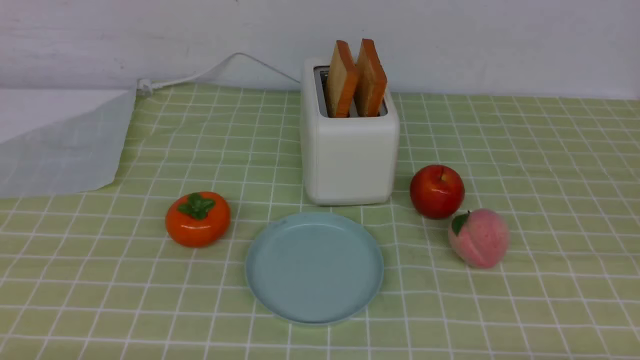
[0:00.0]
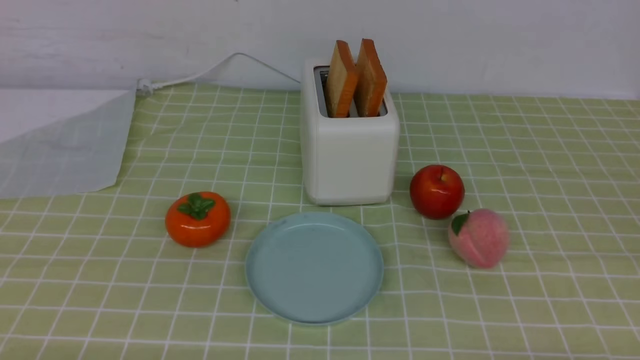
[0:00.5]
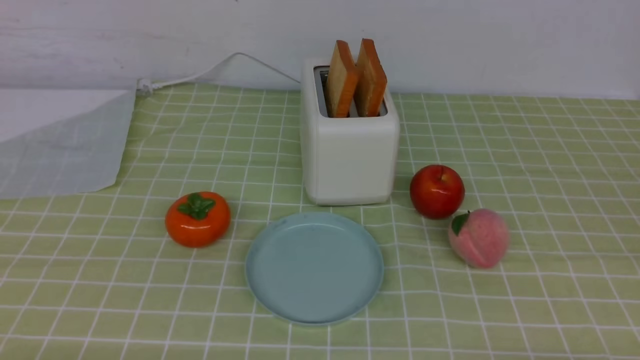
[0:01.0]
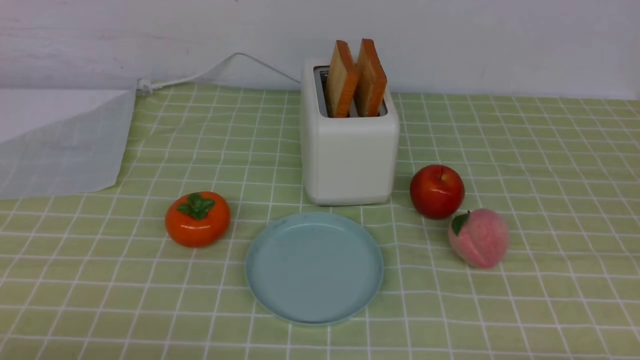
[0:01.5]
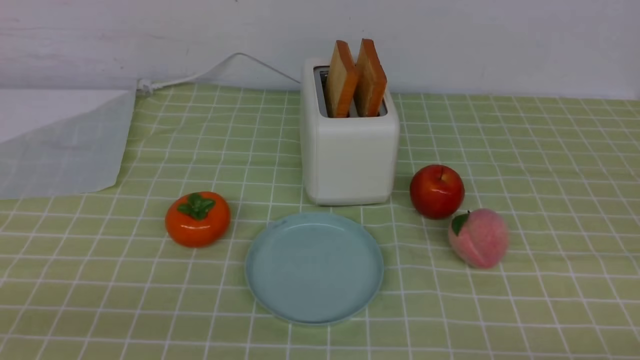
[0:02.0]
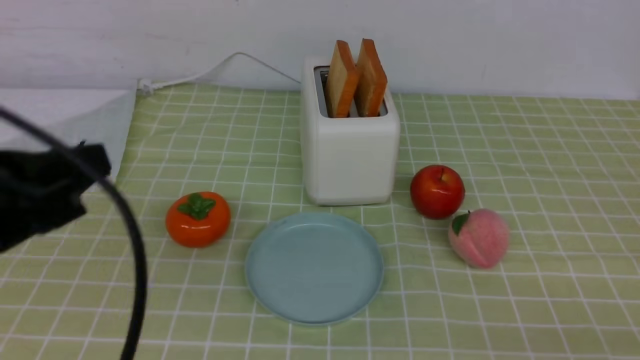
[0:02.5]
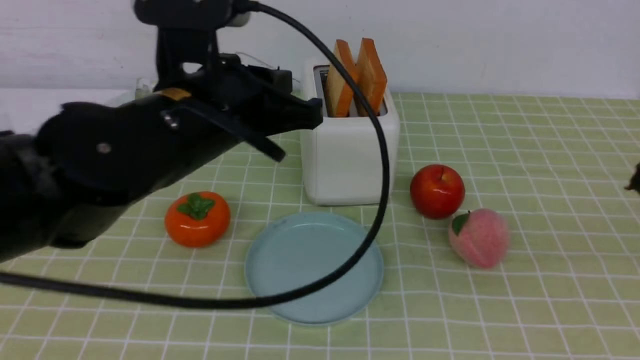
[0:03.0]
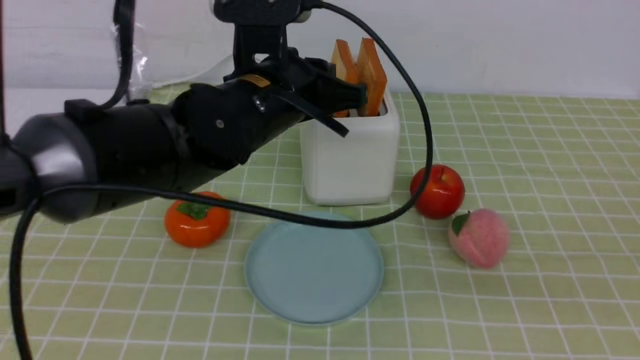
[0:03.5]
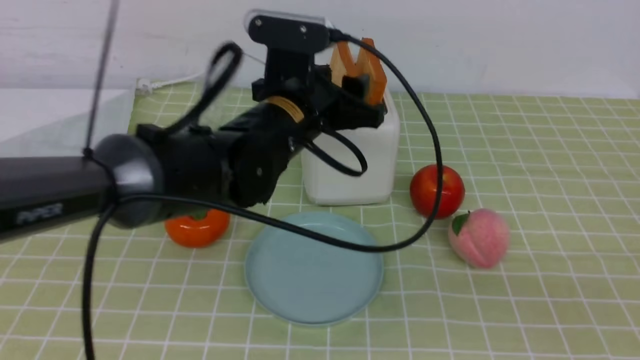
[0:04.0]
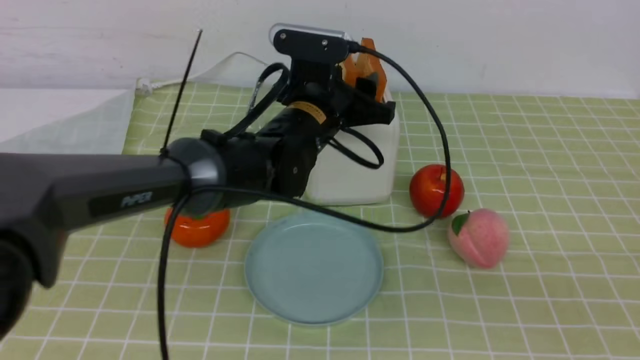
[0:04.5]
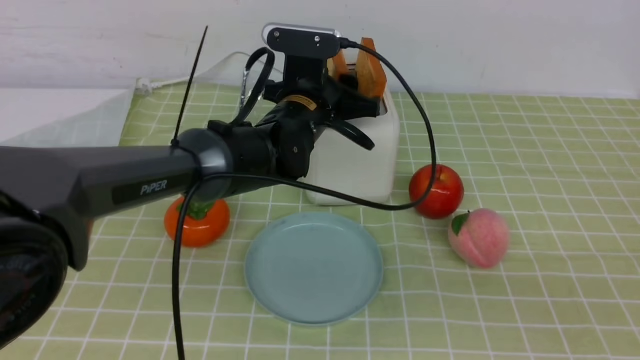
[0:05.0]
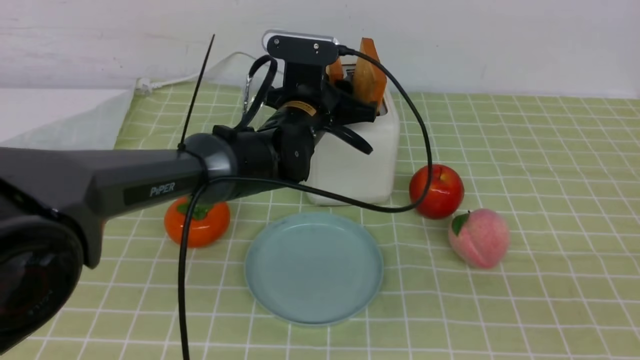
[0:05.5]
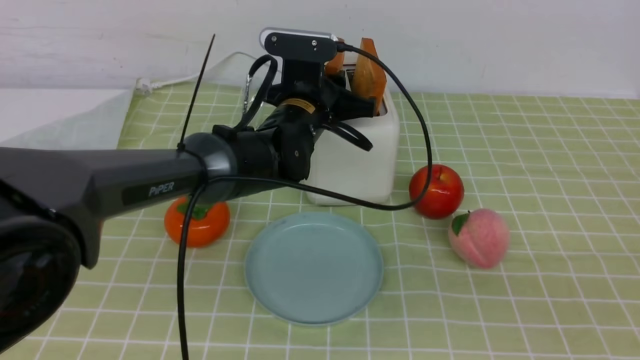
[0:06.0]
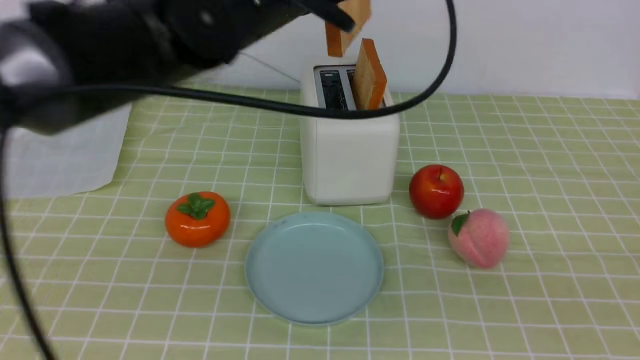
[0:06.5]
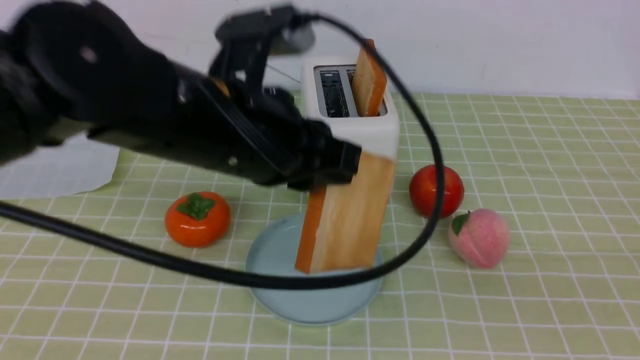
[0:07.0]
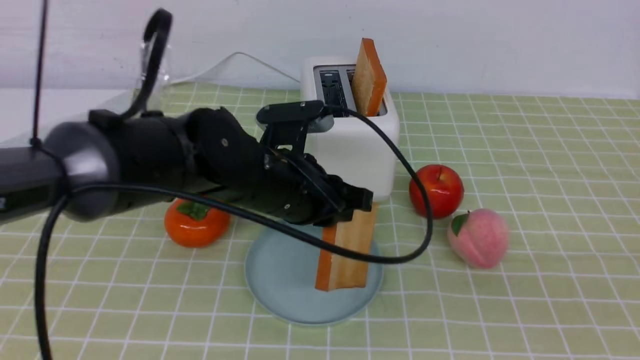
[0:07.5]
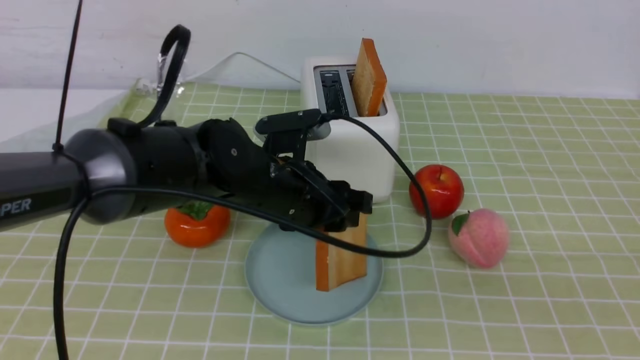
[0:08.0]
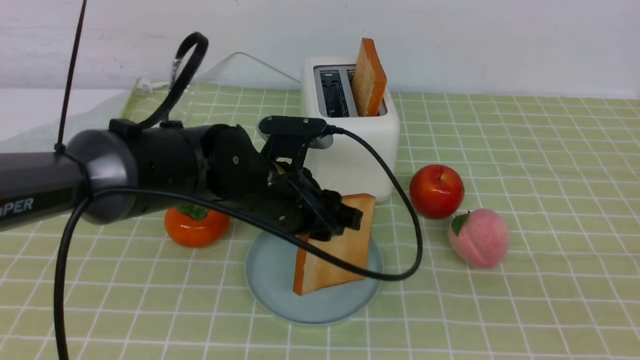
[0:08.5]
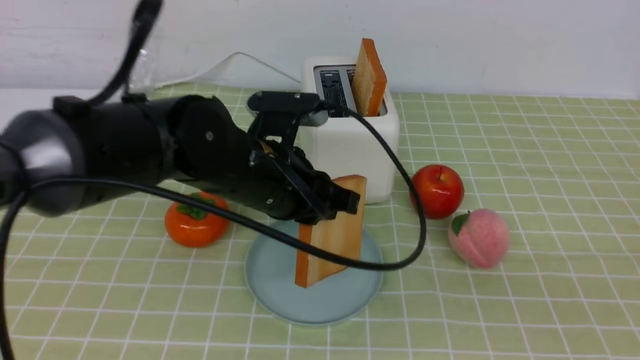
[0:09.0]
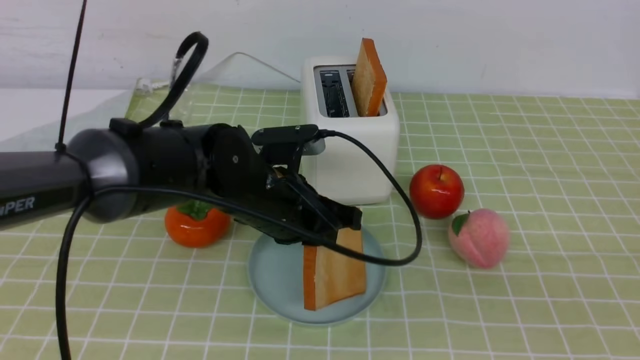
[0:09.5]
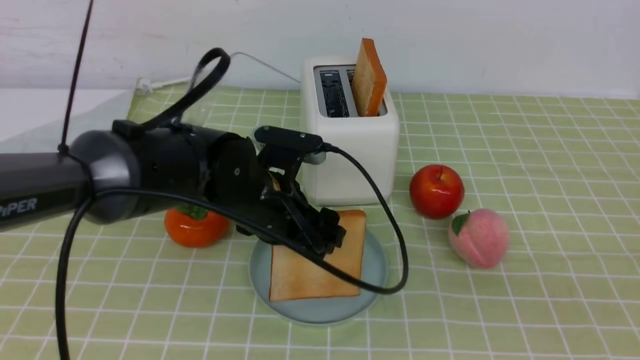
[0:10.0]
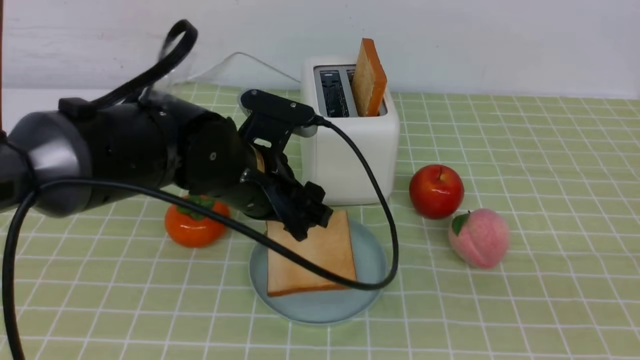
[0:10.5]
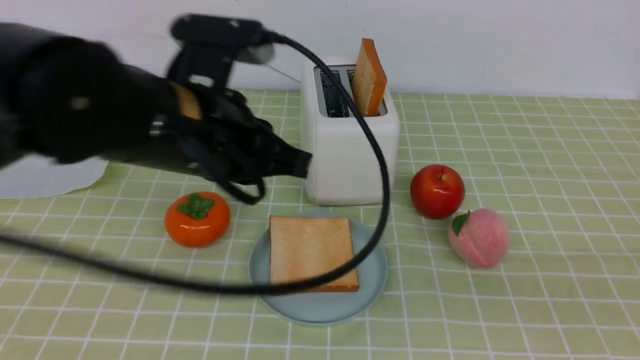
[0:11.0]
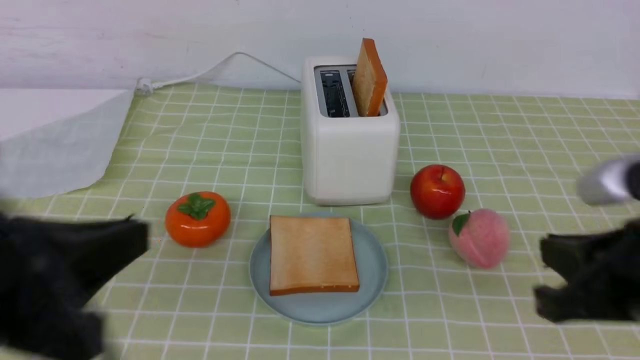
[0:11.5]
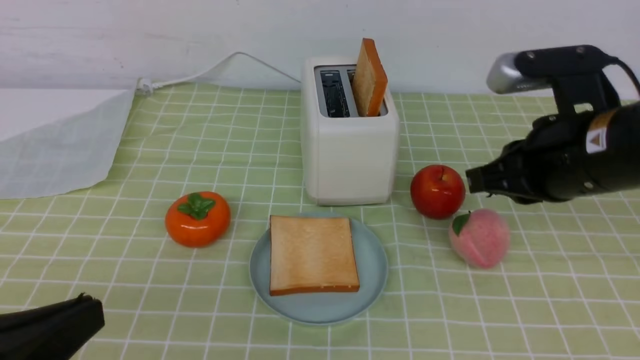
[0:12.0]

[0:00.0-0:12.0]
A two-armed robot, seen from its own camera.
Task of the whole recording: take toasted bread from bread machine on green coffee tablecloth place on plate.
Step, 0:00.0 to 0:06.0: use the left arm to take out a slice of bread.
Step, 0:06.5 to 0:10.5: use the left arm to put a slice of bread into the empty plate.
0:02.0 to 0:04.0: The left gripper moves forward and to the right, some 35 cm, and opens up, while the right gripper goes roughly 10 cm upward, and closes.
0:04.0 to 0:06.0: The left gripper shifts about 5 cm forward, and closes up.
0:06.0 to 0:08.0: The left gripper shifts some 10 cm backward, travels upward and back again, approximately 15 cm each way, and opens up.
0:08.0 to 0:10.0: The left gripper opens.
0:10.0 to 0:12.0: The left gripper is displaced backward and to the left by roughly 30 cm, and closes. Meanwhile the right gripper moves forward and to the left, roughly 20 cm.

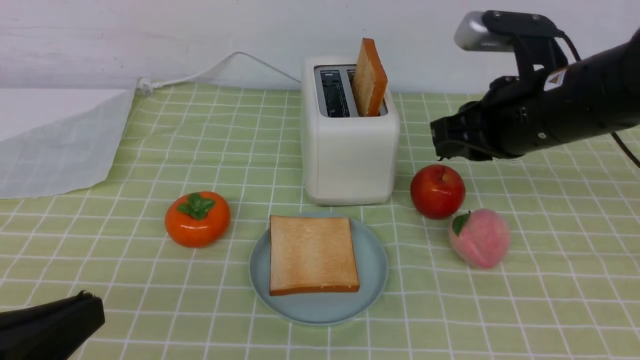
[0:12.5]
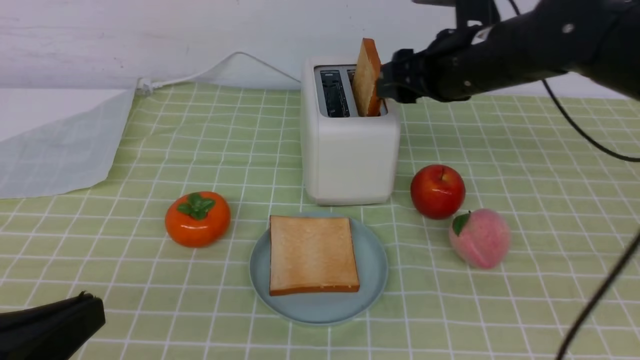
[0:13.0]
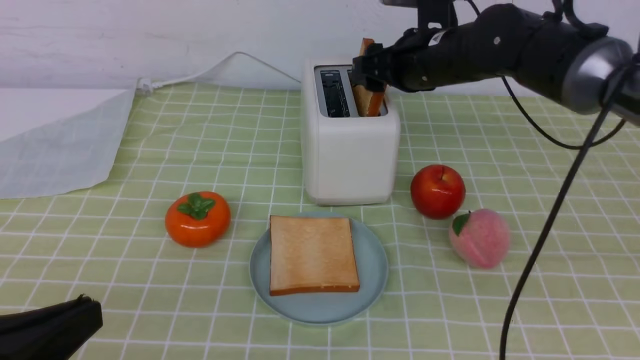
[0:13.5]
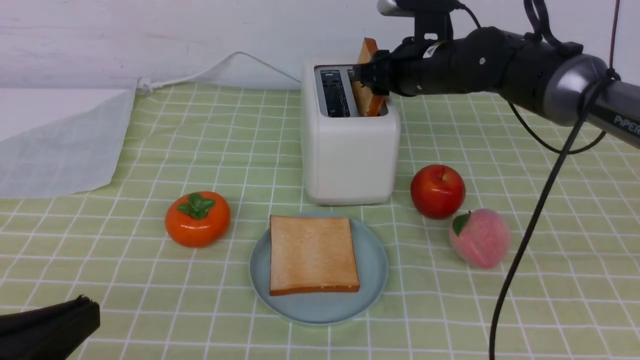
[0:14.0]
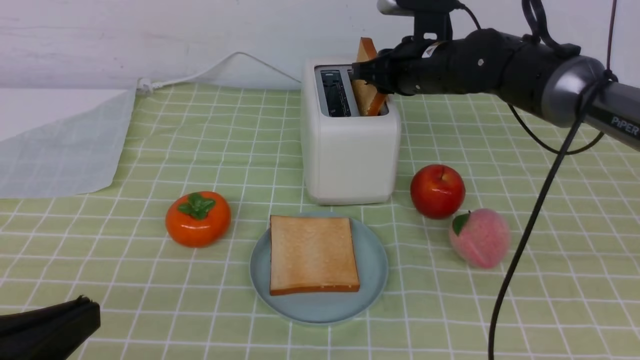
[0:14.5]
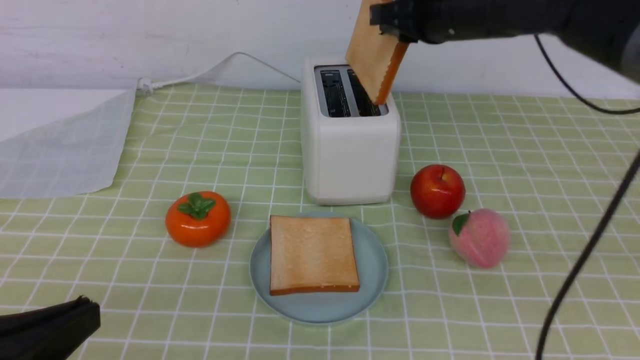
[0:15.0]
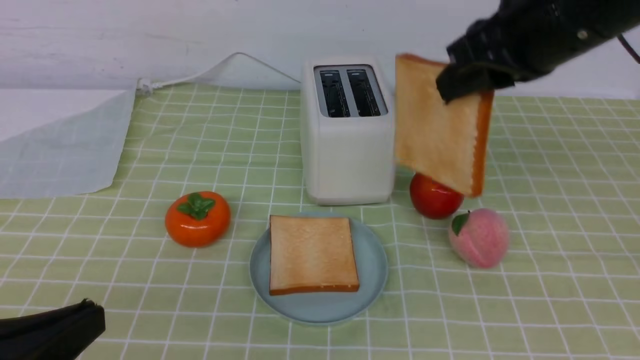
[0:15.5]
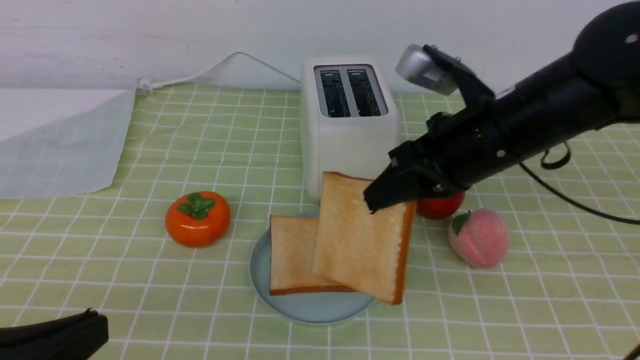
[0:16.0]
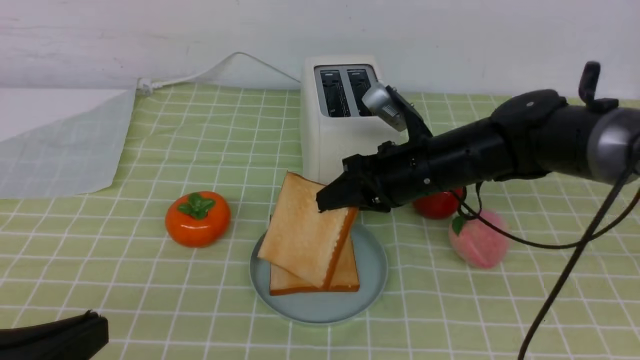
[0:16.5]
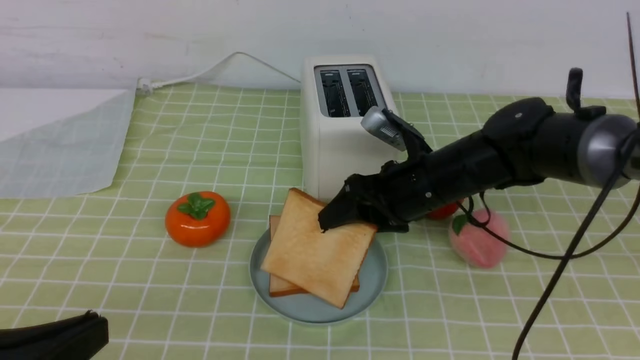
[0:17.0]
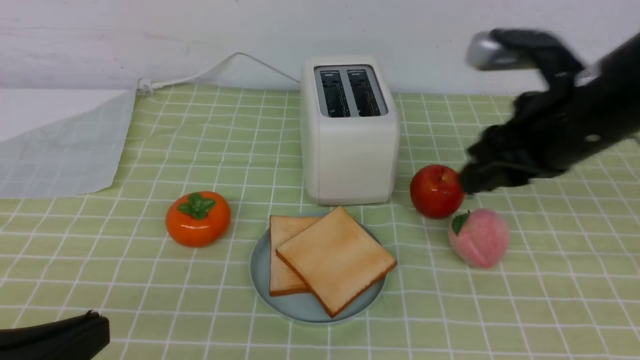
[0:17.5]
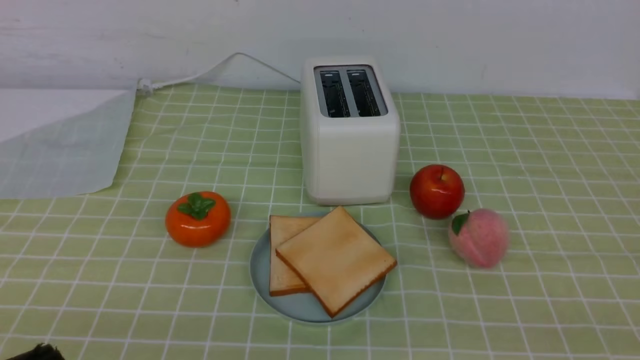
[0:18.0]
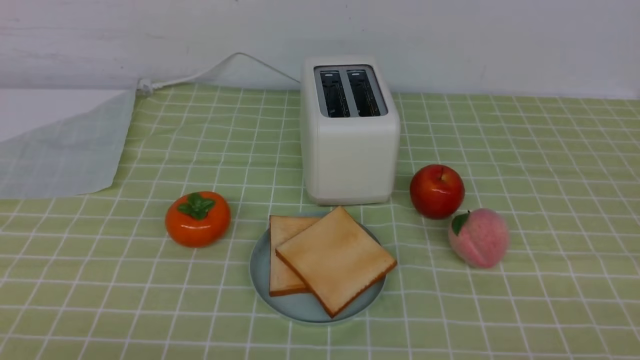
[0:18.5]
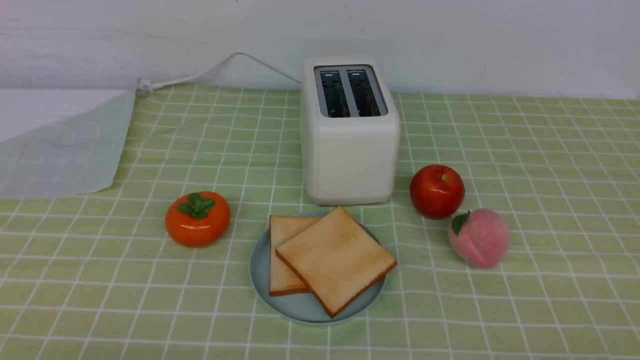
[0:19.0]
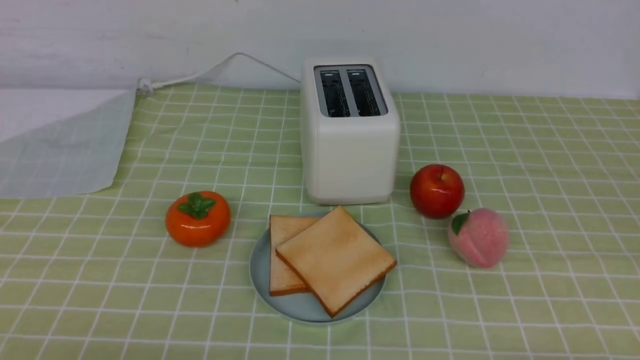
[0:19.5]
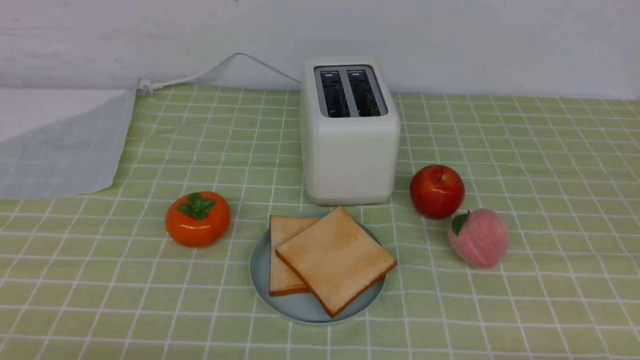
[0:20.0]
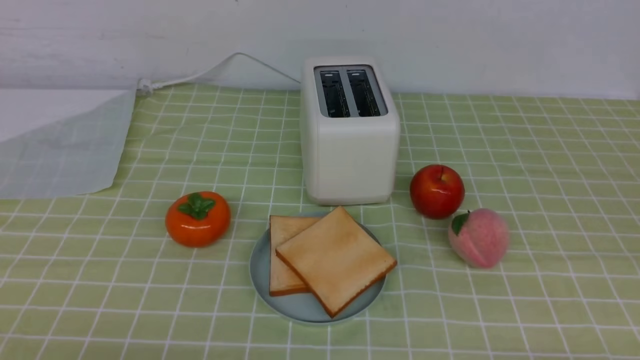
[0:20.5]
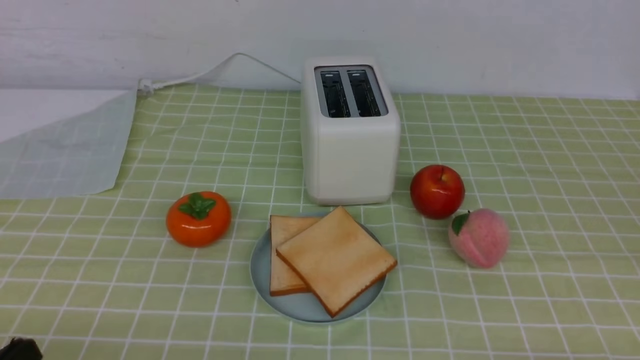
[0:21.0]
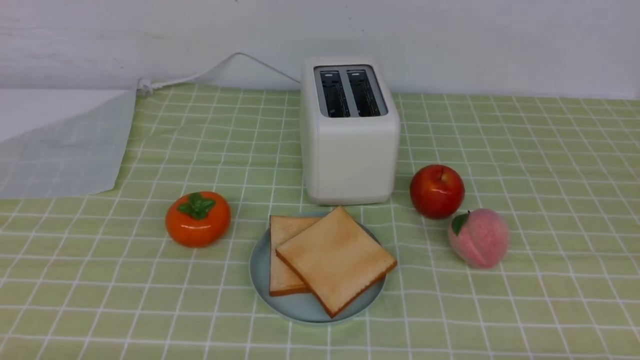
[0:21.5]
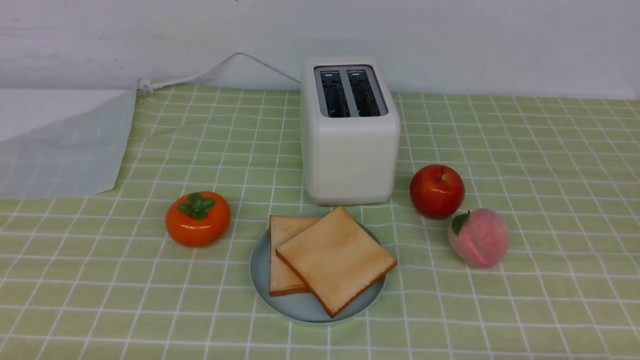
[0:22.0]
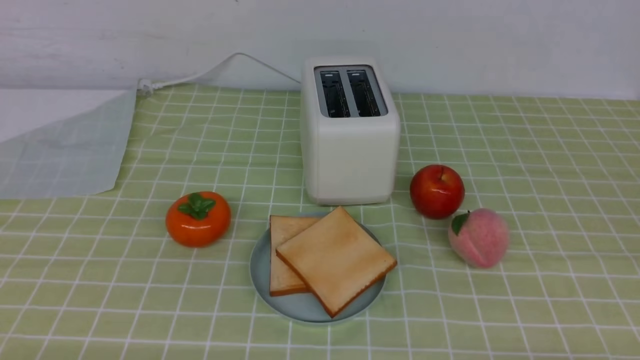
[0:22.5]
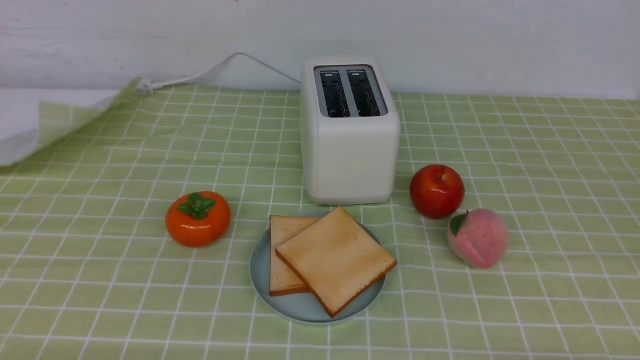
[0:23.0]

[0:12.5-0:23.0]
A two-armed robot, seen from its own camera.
Task of the whole recording: take toasted bread from bread machine on green coffee tablecloth place on plate.
Step, 0:12.5 to 0:15.0: use the right arm to take out a slice of bread.
Step, 0:15.5 to 0:17.5: use the right arm to put a slice of bread into the plate.
0:12.5 to 0:14.5: The right gripper goes some 15 cm forward, and opens, then closes once more.
0:14.5 to 0:16.5: The right gripper shifts roughly 10 cm backward and downward.
0:16.5 to 0:19.0: The right gripper moves backward and to the right, about 40 cm, and opens and closes again.
0:21.0 to 0:23.0: There are only small adjustments of the grippers.
